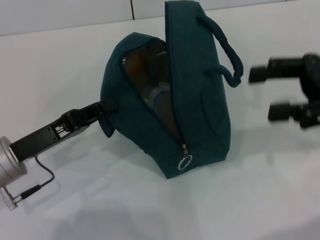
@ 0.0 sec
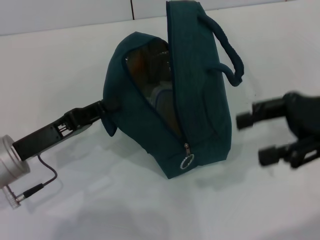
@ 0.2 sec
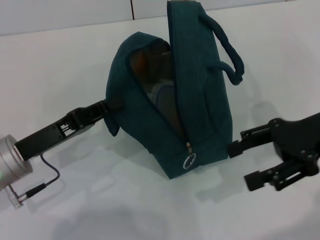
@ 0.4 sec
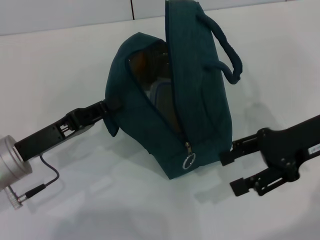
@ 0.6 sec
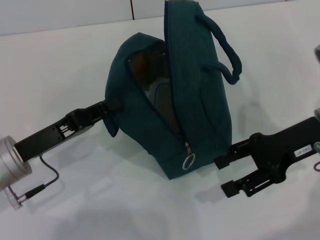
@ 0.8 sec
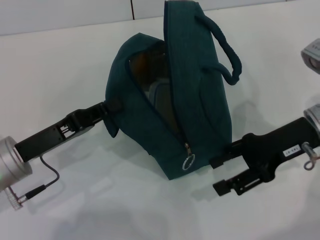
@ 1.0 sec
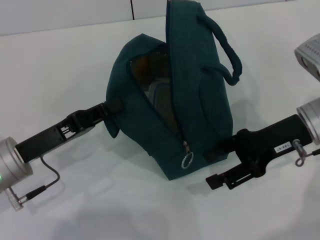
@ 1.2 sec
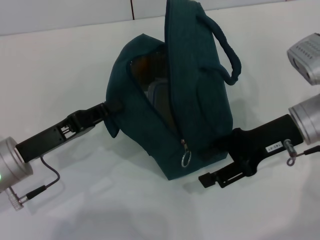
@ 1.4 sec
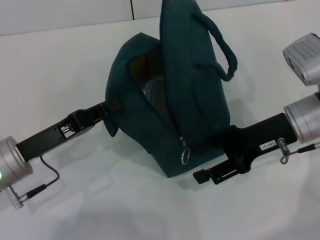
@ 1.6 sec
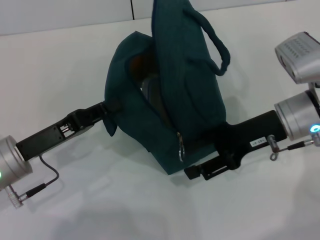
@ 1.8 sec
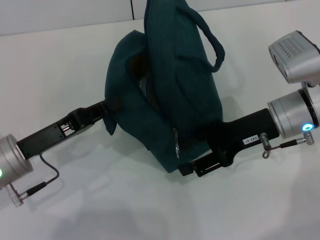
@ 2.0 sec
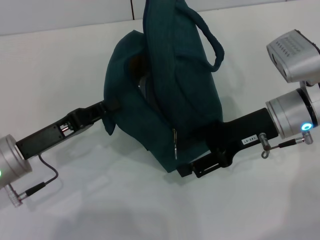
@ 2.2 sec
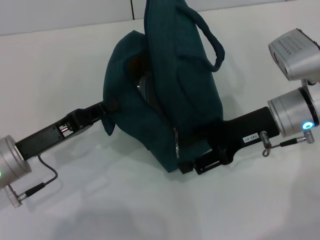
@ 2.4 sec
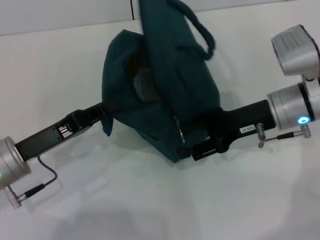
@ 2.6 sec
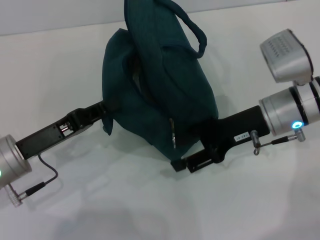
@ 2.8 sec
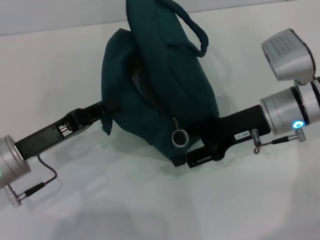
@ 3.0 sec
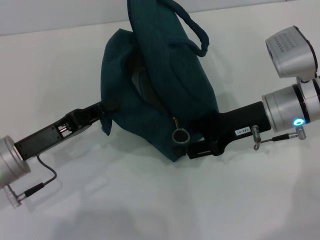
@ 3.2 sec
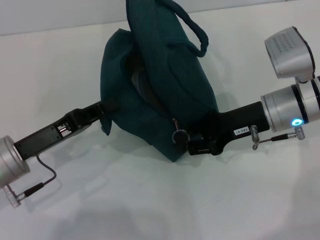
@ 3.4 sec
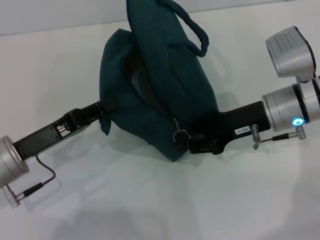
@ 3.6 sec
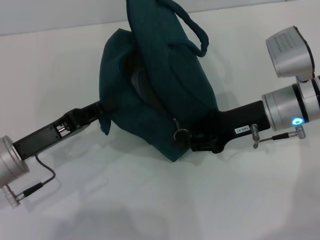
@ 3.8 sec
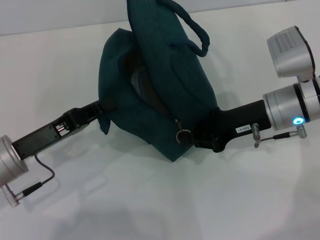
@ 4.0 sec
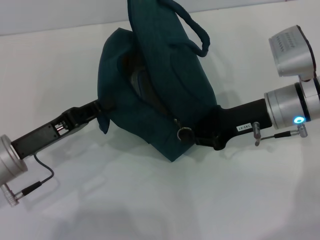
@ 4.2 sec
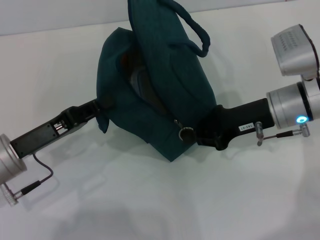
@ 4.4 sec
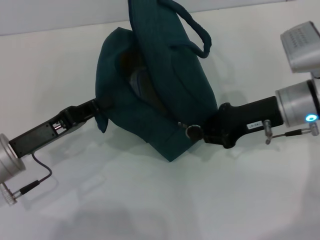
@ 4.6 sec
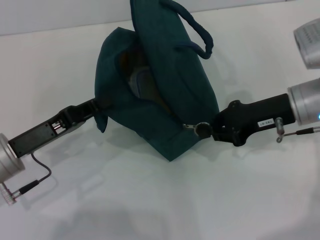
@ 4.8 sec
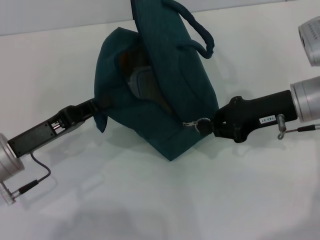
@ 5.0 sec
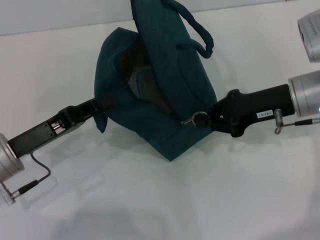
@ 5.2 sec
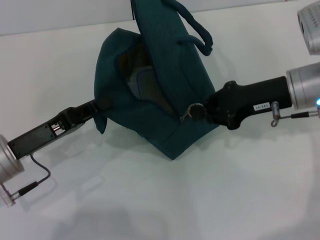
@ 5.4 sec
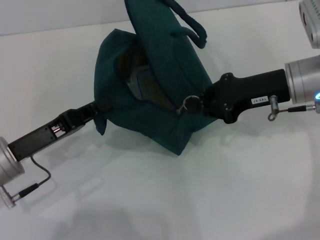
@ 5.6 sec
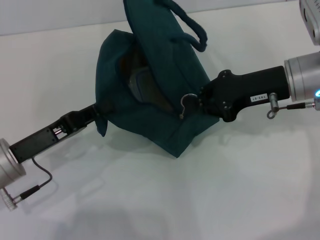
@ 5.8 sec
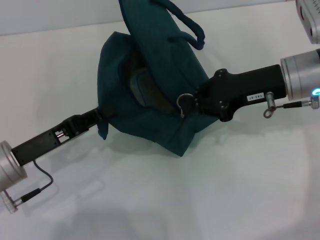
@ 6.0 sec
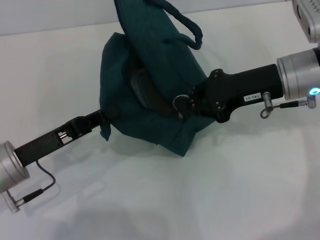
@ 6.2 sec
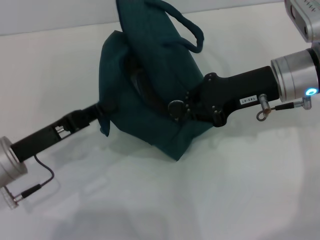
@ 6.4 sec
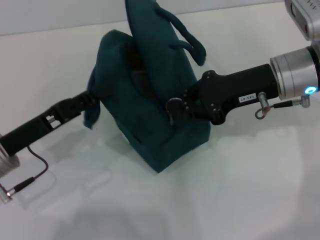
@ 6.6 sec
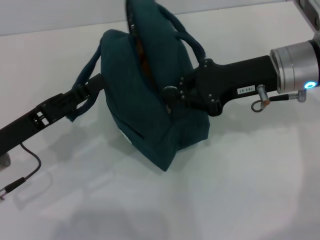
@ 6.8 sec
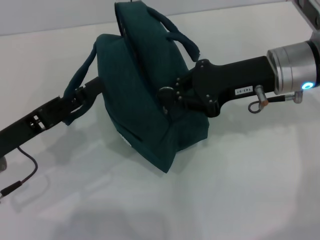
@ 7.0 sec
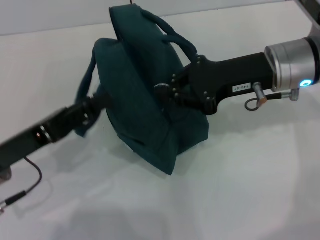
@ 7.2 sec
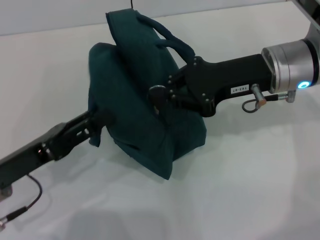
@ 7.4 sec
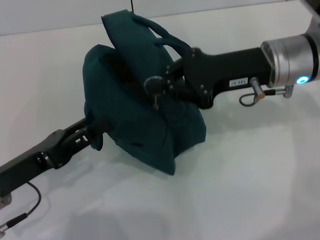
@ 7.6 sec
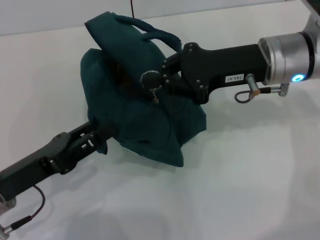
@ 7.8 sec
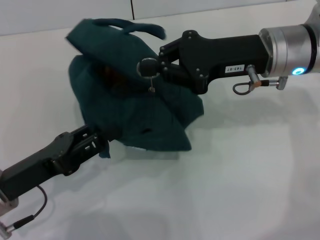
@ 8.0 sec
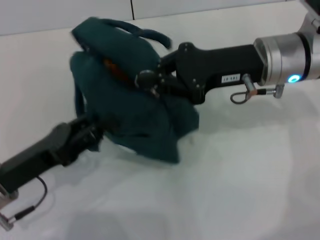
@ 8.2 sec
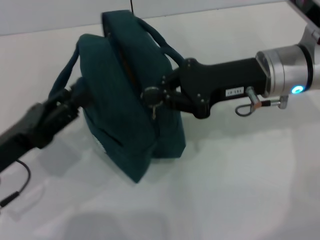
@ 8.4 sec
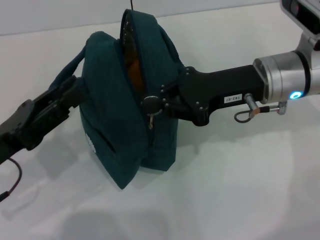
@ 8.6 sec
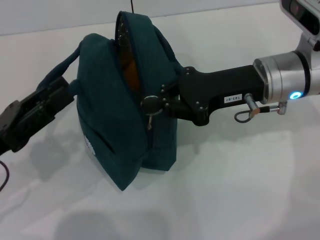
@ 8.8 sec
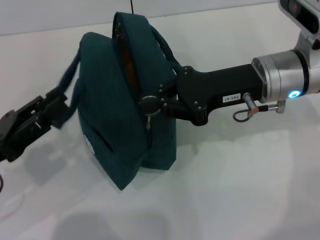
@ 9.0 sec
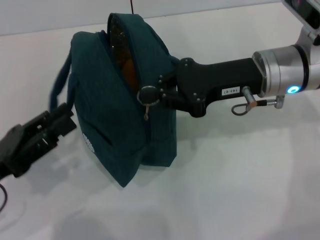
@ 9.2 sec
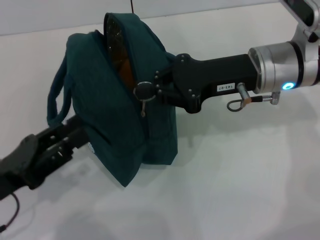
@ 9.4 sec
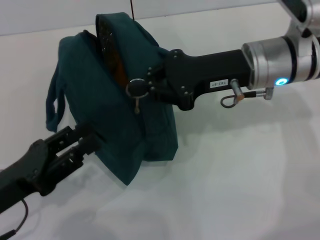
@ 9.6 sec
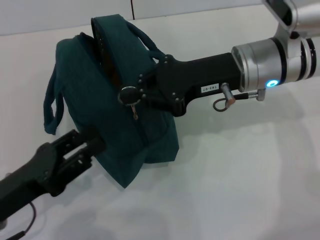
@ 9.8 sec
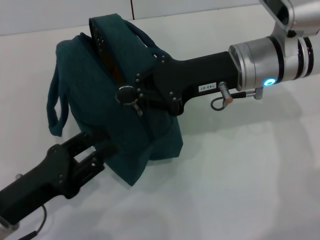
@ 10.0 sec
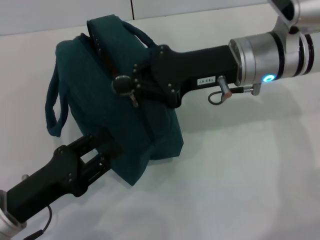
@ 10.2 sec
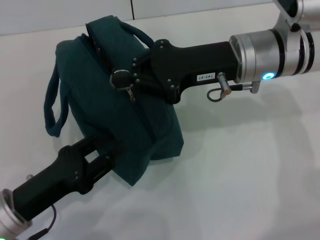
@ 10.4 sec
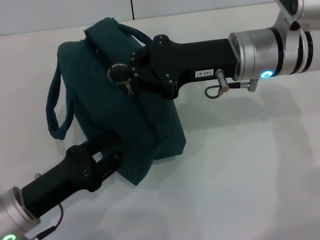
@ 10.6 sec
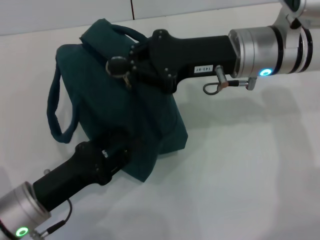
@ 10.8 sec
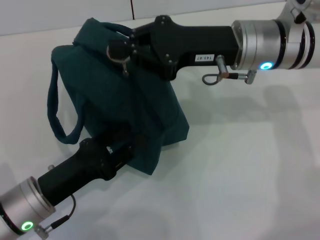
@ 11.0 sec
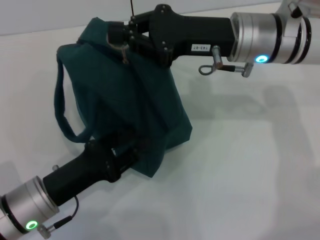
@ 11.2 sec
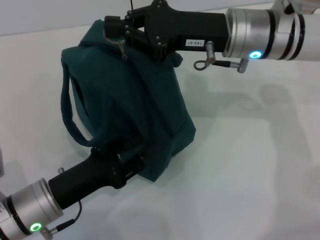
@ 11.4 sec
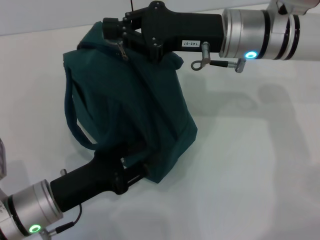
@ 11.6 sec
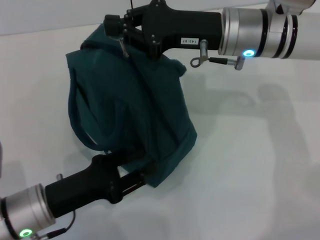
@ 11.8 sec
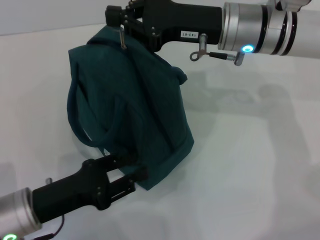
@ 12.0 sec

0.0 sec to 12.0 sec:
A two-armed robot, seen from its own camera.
Step, 0.0 sec to 9.0 sec: Hold the lunch bag with your left hand.
0.0 sec to 1.6 sec: The right gripper travels downward and to the left by some 10 cm.
3.0 sec to 4.4 sec: The right gripper closes up.
4.4 sec to 6.0 sec: The right gripper goes about 5 cm upward.
6.0 sec to 7.6 sec: The left gripper opens.
9.0 sec to 10.4 sec: The left gripper moves downward and to the right, about 5 cm.

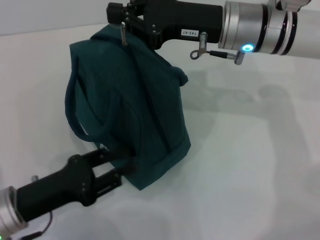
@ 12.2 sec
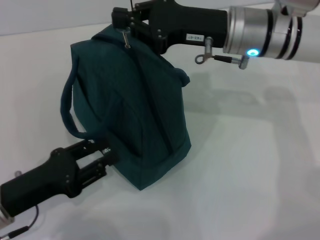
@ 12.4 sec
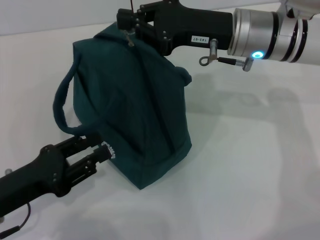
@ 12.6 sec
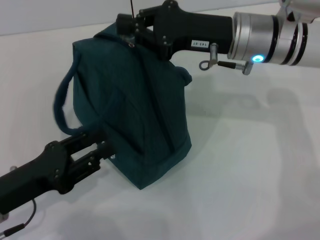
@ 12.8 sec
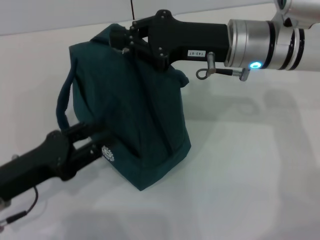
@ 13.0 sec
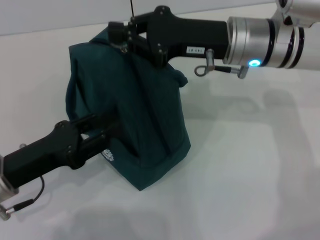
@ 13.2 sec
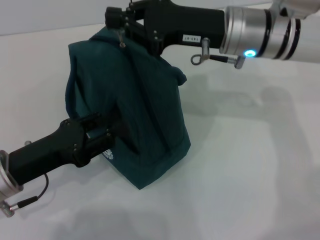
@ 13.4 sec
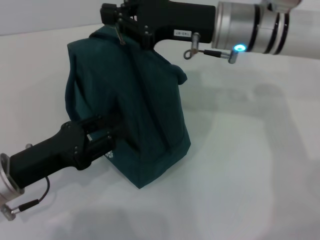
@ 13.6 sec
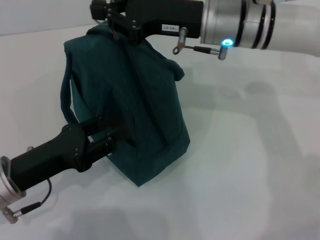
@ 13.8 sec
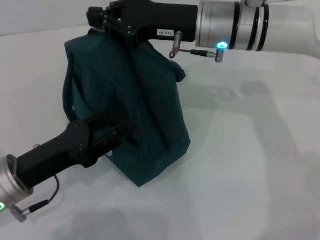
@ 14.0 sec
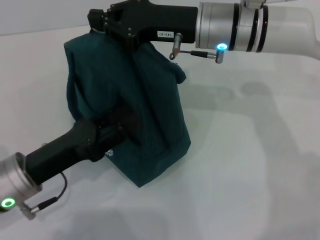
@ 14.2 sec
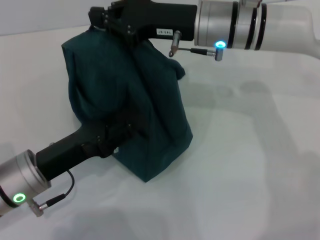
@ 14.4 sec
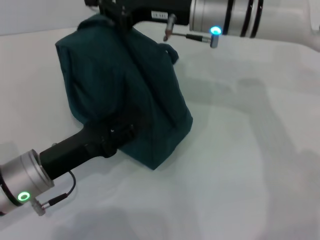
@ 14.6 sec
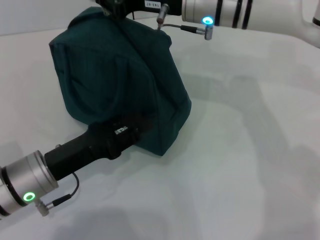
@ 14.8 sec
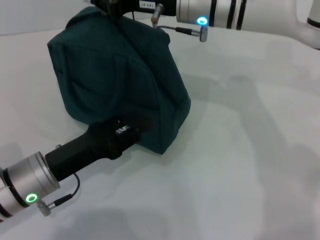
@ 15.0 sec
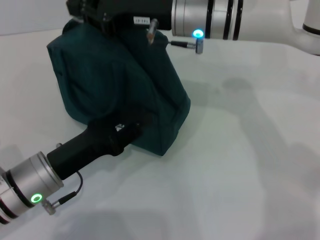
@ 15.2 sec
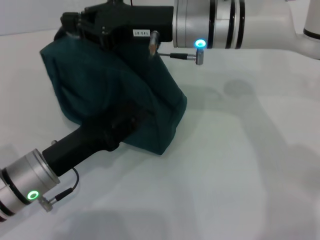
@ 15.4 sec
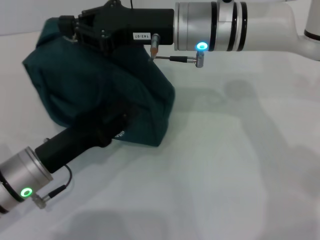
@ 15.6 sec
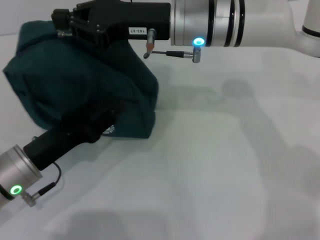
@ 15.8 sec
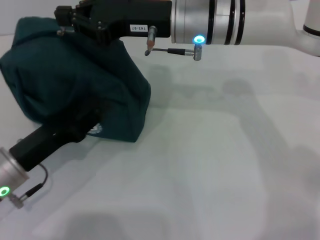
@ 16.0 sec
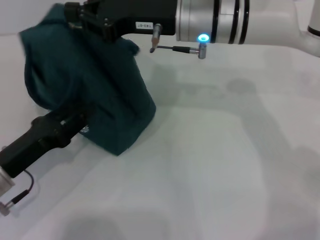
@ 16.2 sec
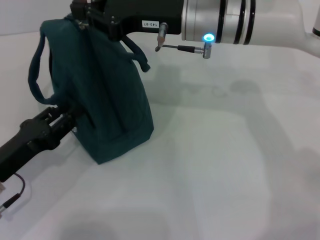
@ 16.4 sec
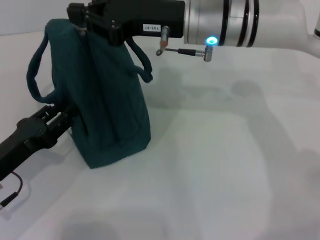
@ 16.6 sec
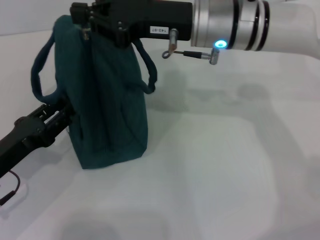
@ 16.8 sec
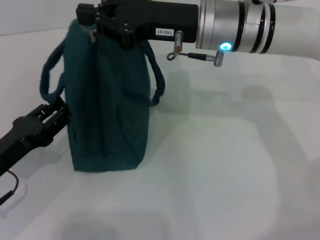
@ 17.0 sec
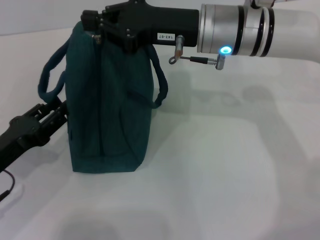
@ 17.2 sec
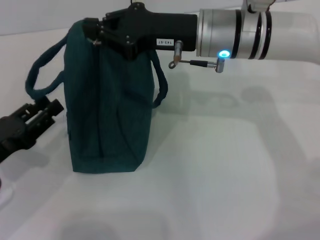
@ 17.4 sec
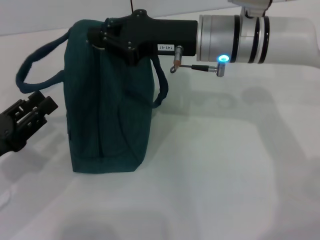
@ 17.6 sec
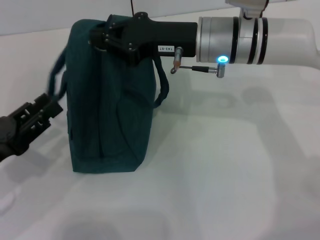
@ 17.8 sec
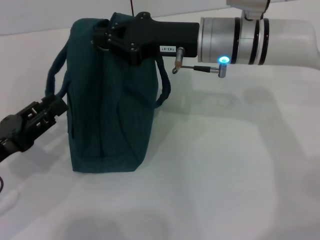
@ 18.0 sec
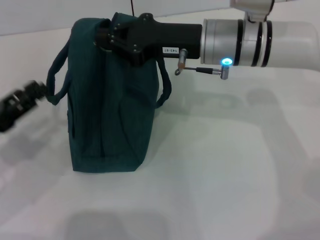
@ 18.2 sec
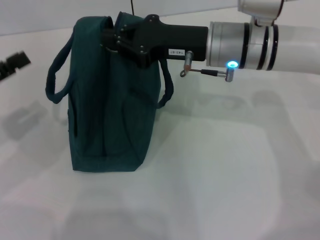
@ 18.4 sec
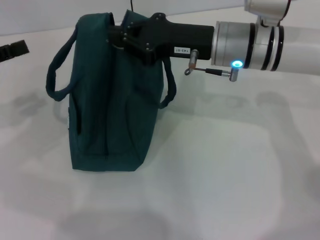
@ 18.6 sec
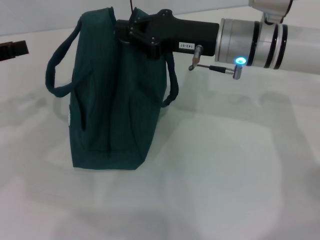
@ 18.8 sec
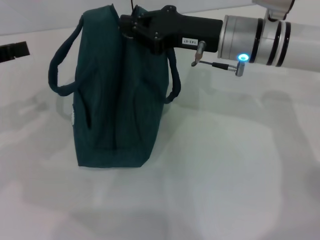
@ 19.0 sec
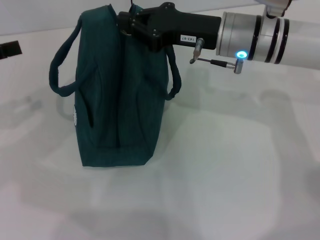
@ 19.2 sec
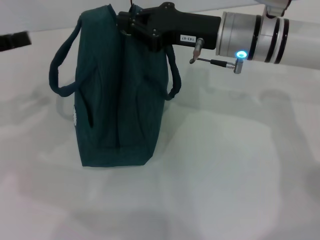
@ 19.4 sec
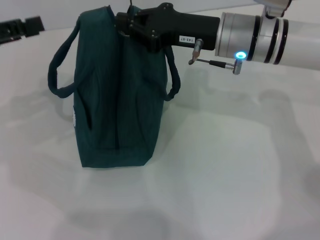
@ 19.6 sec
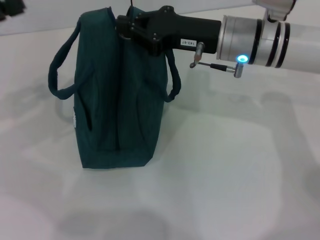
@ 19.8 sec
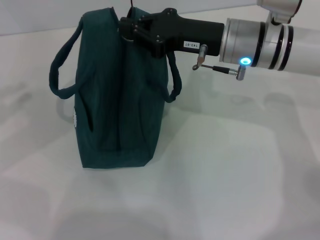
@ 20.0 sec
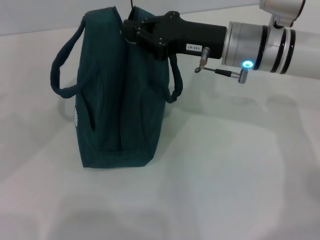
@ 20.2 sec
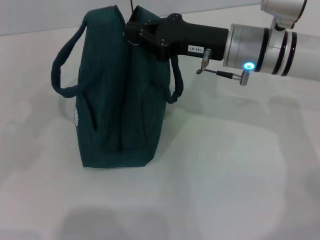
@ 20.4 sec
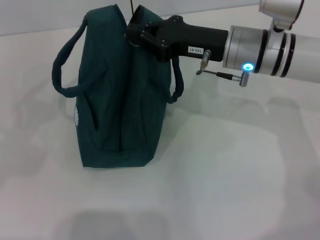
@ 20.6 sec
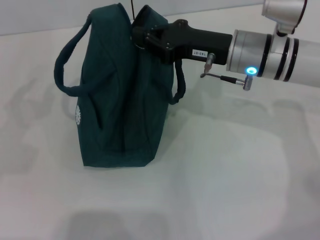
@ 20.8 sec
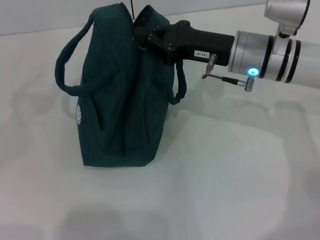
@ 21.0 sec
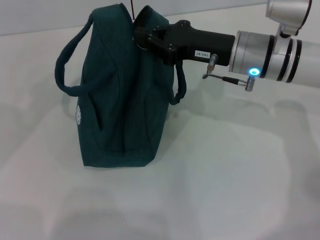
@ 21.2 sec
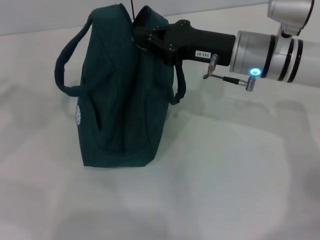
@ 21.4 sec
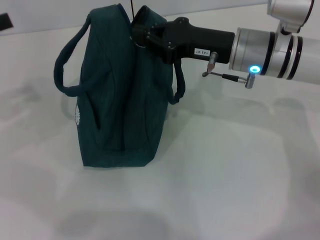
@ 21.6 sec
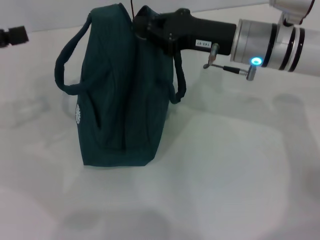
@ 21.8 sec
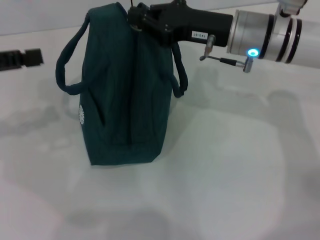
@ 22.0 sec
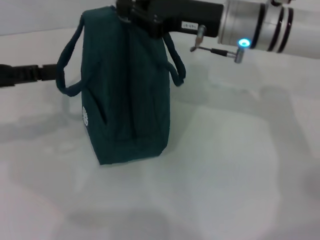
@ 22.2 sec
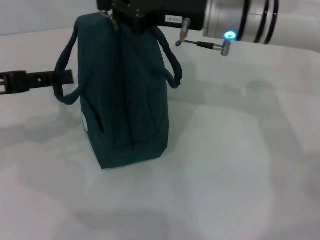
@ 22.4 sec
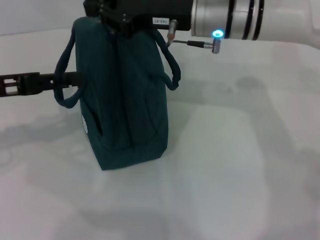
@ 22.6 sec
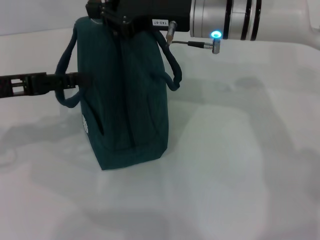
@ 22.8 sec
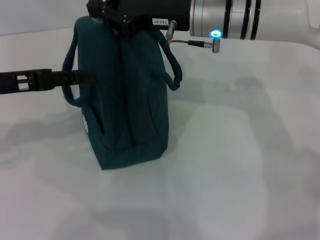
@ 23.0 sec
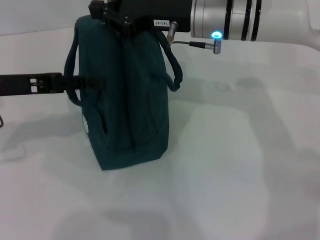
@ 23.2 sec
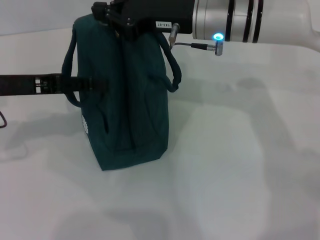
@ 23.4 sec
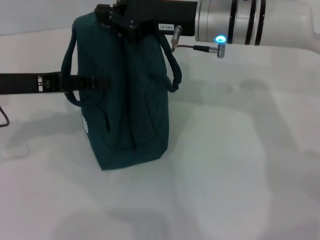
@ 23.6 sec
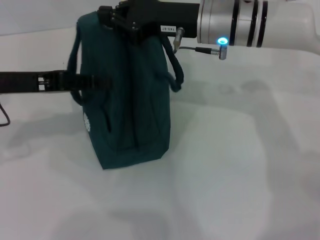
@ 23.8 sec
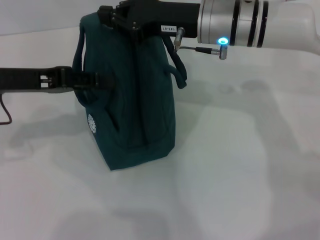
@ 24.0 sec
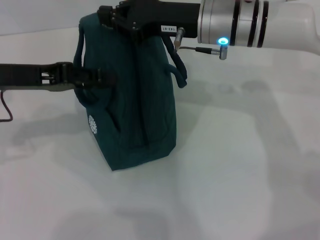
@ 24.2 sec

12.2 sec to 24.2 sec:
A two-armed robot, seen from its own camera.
15.2 sec to 16.6 sec: The left gripper heads to the left, covering roughly 10 cm.
16.6 sec to 18.2 sec: The left gripper shifts by some 5 cm.
18.2 sec to 19.8 sec: The left gripper heads upward and forward, covering approximately 15 cm.
19.8 sec to 21.2 sec: The left gripper heads to the left, covering approximately 5 cm.
21.2 sec to 22.6 sec: The left gripper moves to the right, some 10 cm; the right gripper is displaced upward and to the left by some 5 cm.
22.6 sec to 24.2 sec: There are only small adjustments of the grippers.
